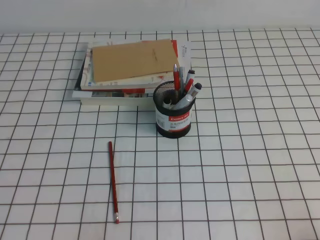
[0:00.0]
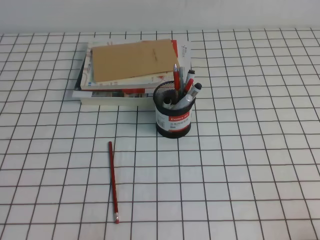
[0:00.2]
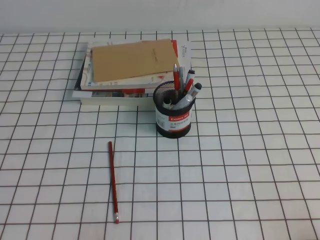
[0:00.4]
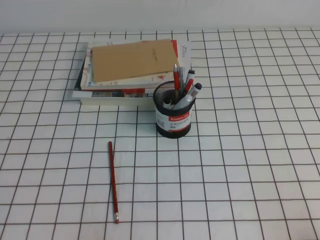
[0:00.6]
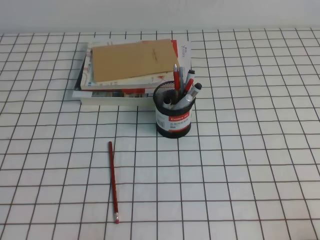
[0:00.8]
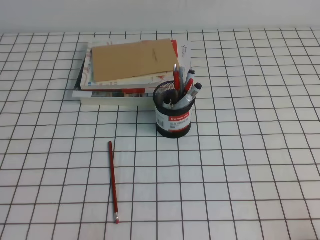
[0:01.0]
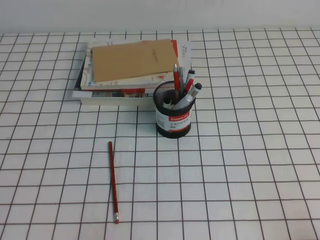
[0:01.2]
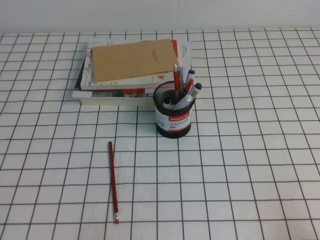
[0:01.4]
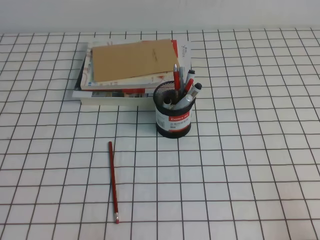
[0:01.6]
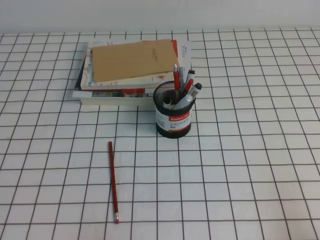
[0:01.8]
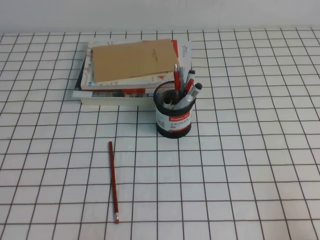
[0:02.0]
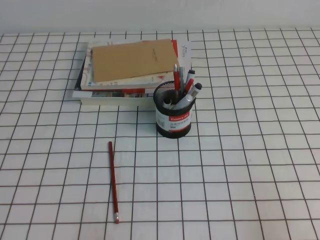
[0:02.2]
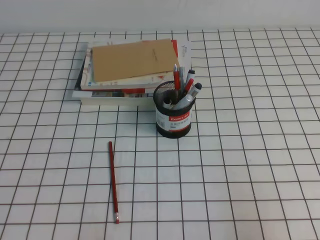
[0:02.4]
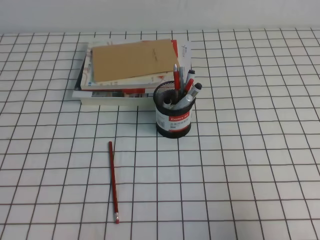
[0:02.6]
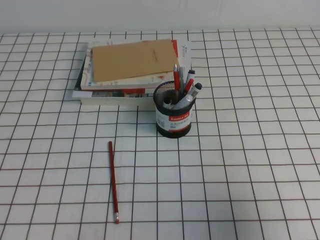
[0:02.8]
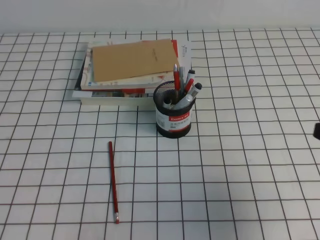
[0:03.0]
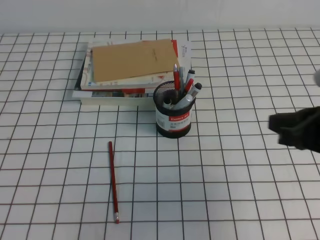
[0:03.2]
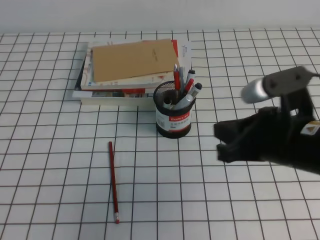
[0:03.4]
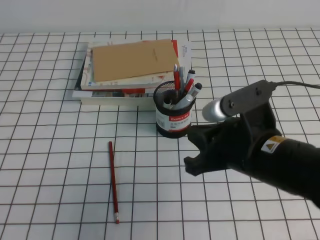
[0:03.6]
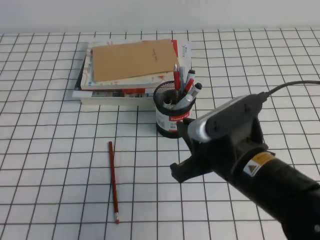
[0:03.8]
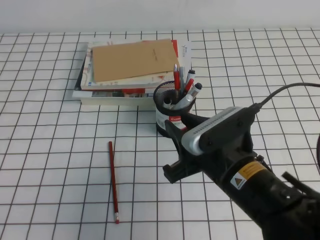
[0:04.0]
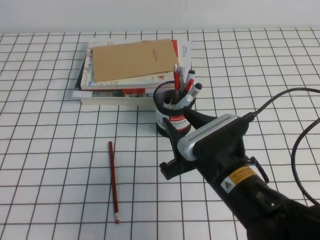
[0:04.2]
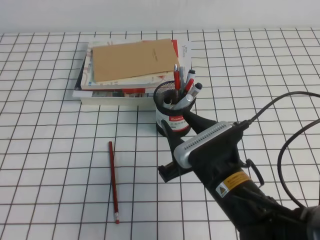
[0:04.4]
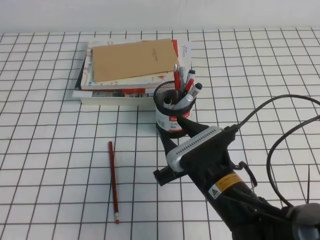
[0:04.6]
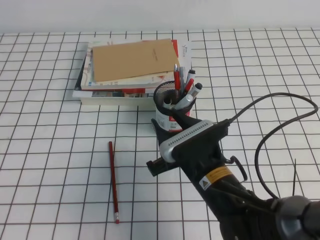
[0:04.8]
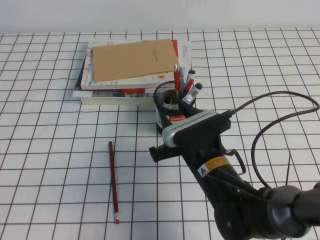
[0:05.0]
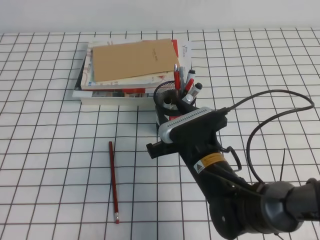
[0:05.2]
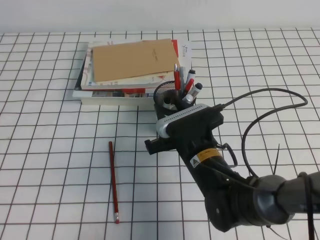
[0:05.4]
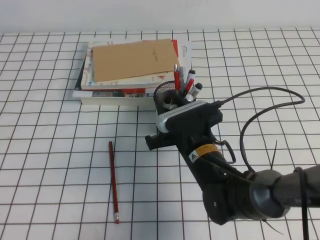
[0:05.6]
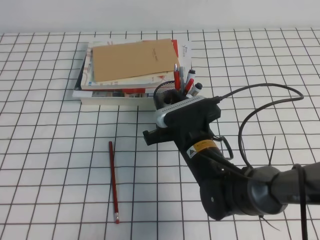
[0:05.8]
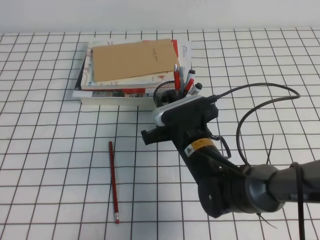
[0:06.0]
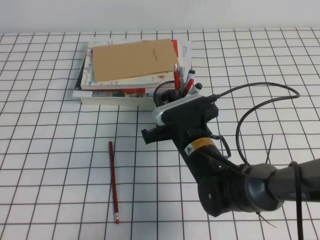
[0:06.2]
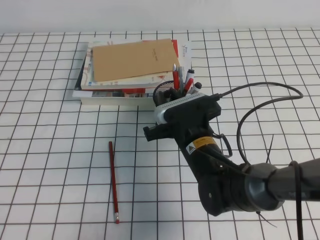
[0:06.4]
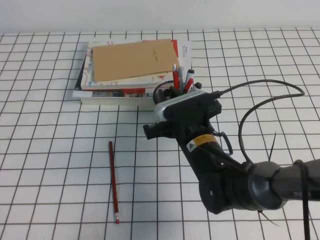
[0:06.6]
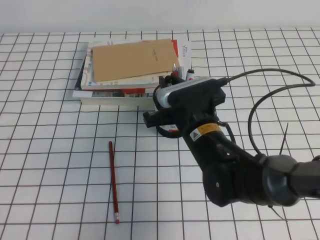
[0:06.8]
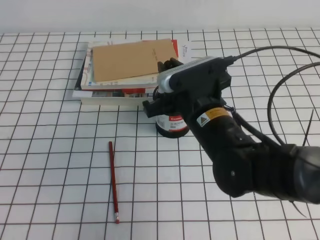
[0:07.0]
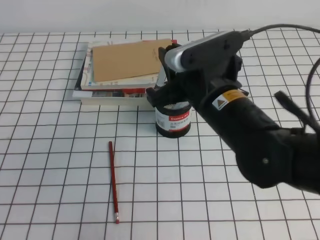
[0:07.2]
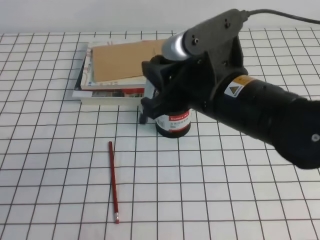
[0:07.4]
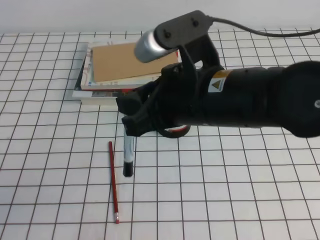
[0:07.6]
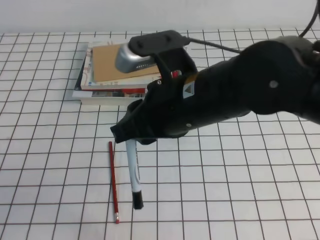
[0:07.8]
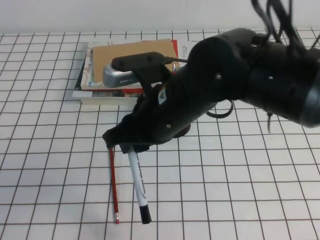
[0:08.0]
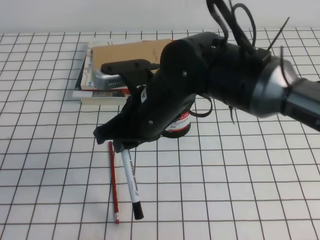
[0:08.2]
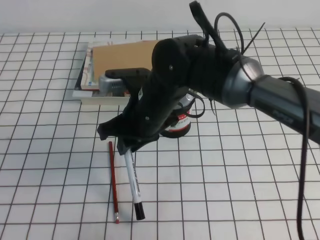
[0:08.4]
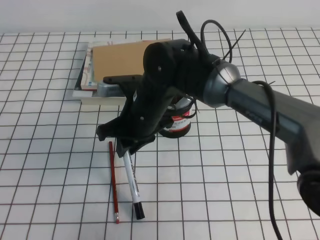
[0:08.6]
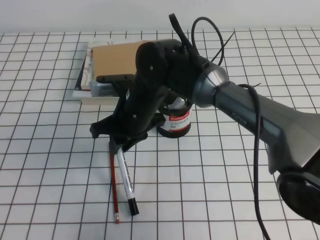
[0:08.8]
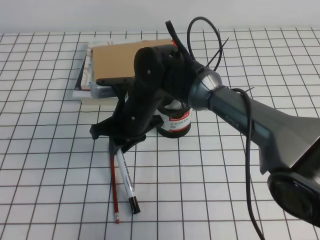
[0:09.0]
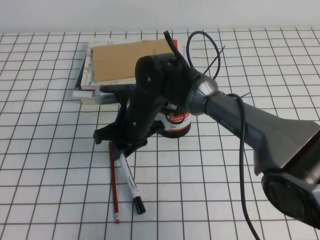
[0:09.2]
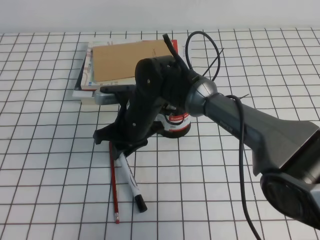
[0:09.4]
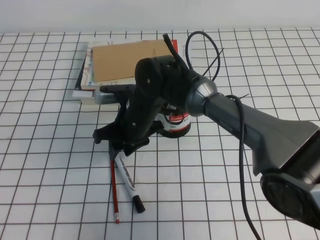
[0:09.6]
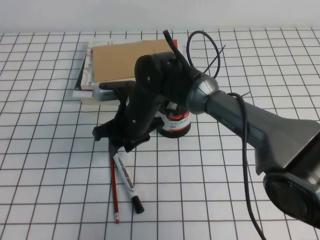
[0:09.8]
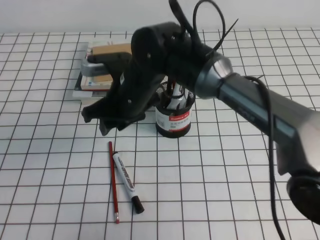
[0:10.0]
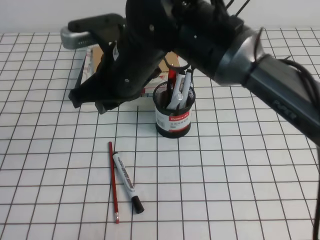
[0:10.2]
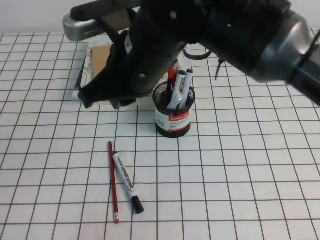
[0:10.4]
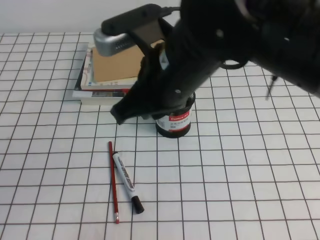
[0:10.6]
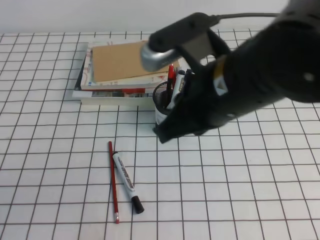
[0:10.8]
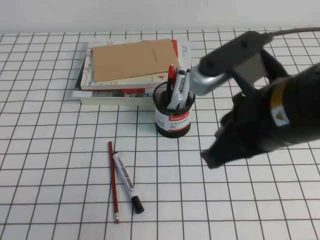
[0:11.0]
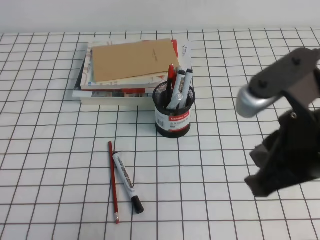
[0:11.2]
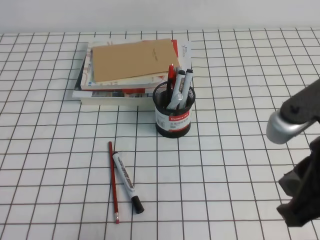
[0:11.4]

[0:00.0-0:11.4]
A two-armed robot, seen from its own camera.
0:01.4 to 0:02.8: The right gripper shifts about 15 cm upward and forward.
0:02.8 to 0:04.2: The right gripper moves to the left, about 20 cm, and opens up.
0:04.2 to 0:05.6: The right gripper moves forward, approximately 5 cm.
0:05.6 to 0:07.2: The right gripper travels upward by roughly 10 cm, and closes.
0:07.2 to 0:08.6: The right gripper goes about 10 cm to the left and forward.
0:10.0 to 0:11.4: The right gripper moves to the right, backward and upward, approximately 30 cm, and closes up.

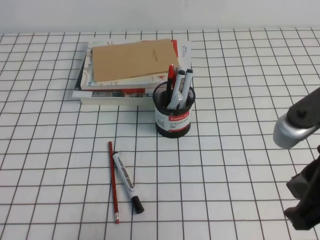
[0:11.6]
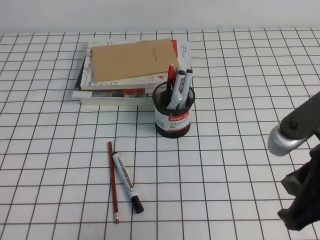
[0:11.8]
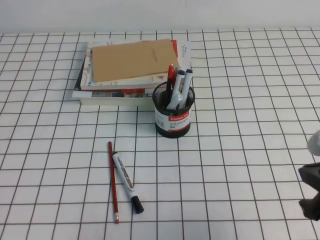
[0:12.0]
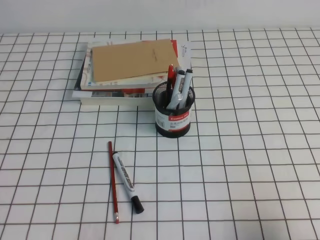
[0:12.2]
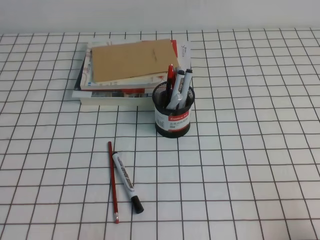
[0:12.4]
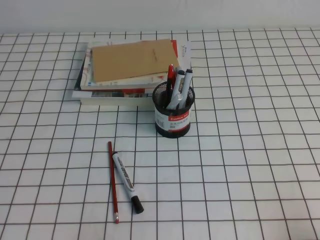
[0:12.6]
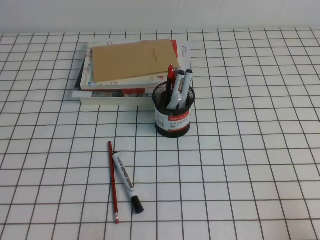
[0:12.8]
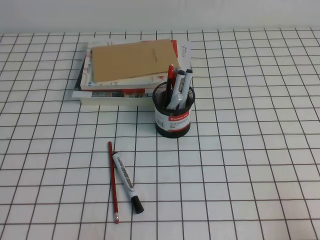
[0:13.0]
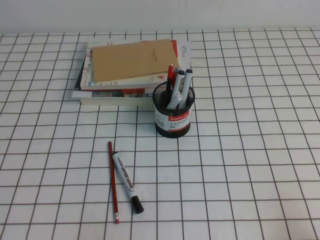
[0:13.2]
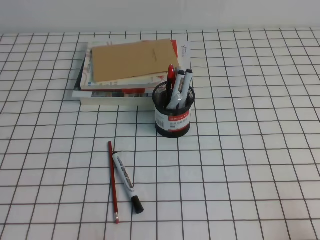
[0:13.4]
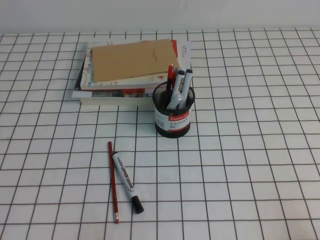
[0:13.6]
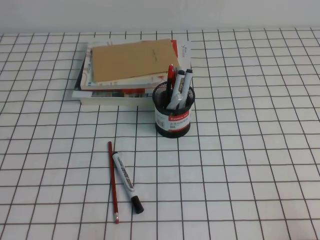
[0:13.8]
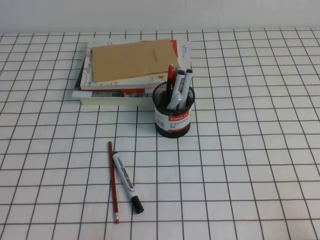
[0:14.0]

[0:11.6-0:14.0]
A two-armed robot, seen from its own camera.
Step, 0:11.6 to 0:14.0: Pick up the pen from the pen holder.
0:11.6 to 0:12.8: The right gripper travels downward, to the right and backward by some 20 cm.
